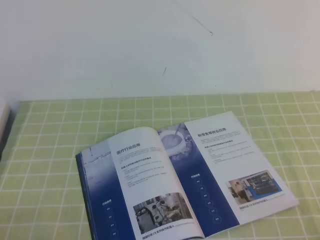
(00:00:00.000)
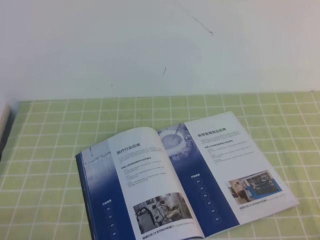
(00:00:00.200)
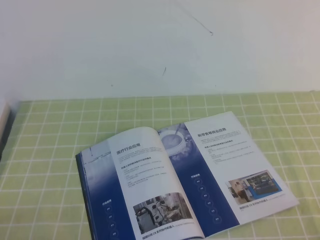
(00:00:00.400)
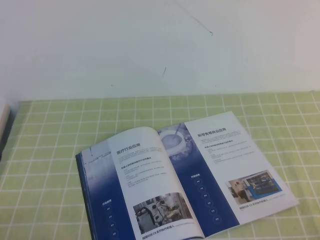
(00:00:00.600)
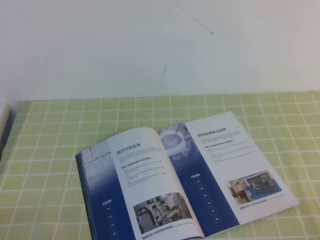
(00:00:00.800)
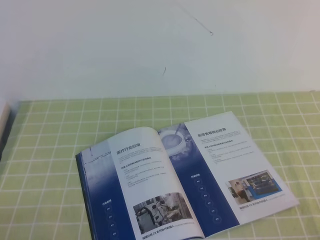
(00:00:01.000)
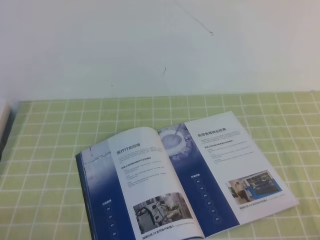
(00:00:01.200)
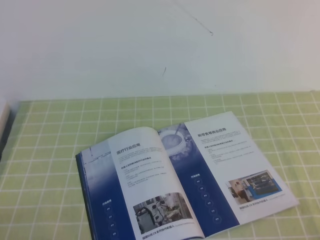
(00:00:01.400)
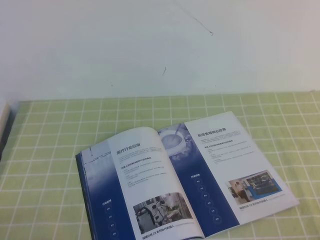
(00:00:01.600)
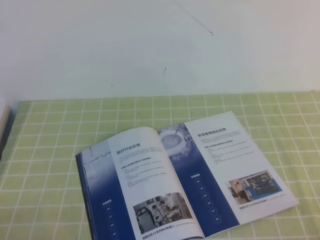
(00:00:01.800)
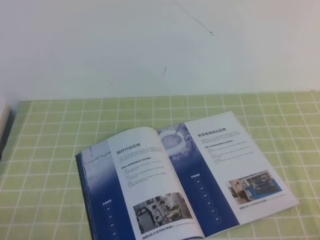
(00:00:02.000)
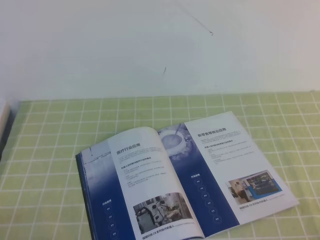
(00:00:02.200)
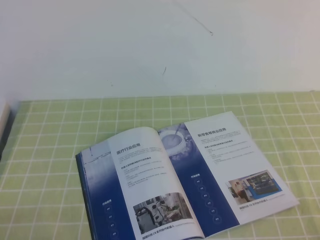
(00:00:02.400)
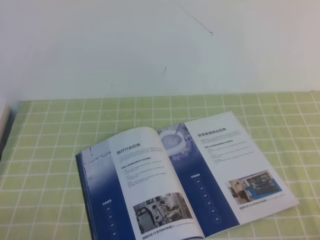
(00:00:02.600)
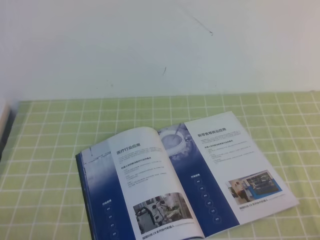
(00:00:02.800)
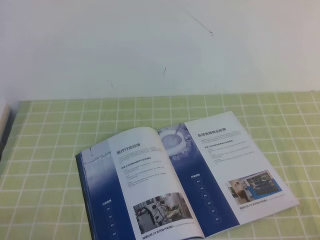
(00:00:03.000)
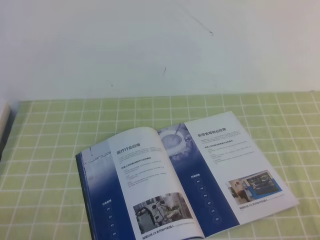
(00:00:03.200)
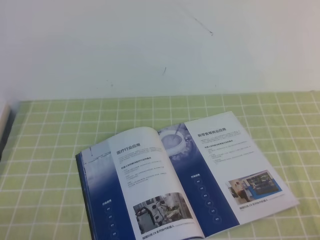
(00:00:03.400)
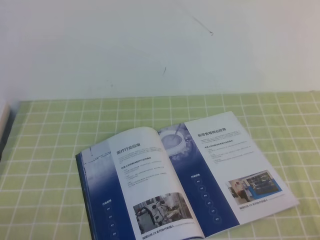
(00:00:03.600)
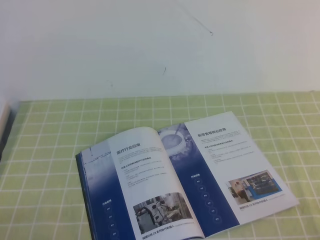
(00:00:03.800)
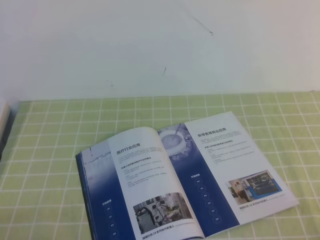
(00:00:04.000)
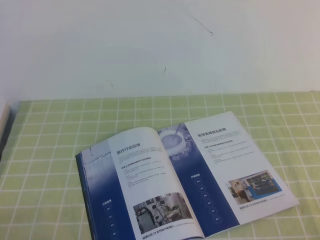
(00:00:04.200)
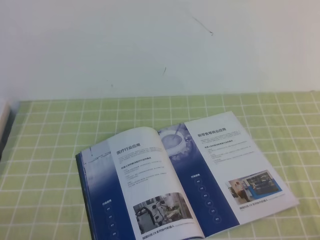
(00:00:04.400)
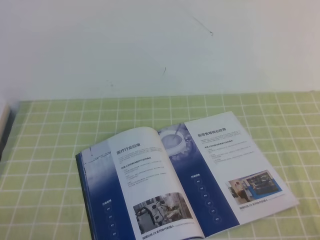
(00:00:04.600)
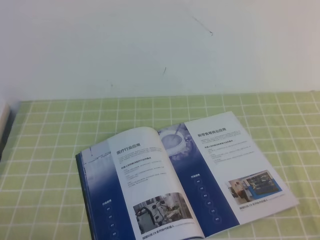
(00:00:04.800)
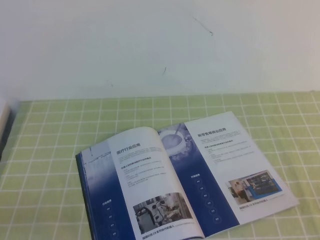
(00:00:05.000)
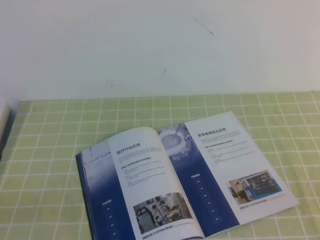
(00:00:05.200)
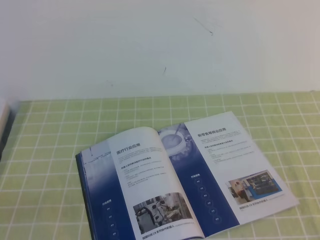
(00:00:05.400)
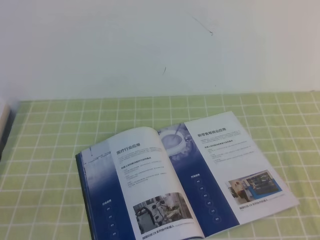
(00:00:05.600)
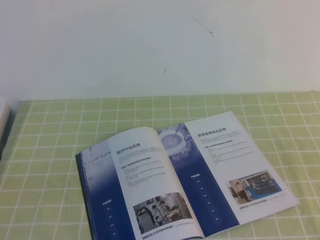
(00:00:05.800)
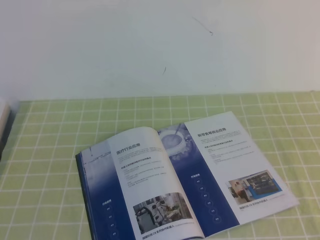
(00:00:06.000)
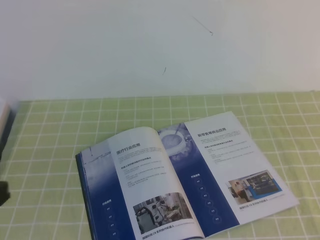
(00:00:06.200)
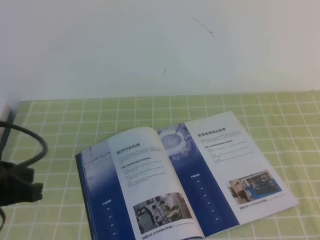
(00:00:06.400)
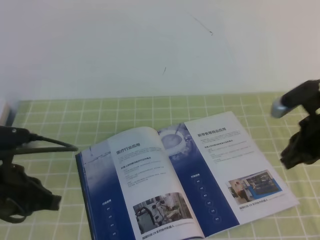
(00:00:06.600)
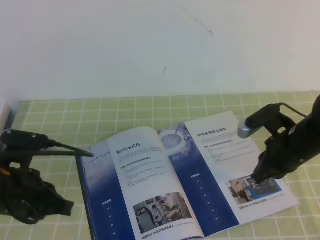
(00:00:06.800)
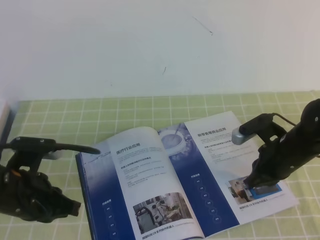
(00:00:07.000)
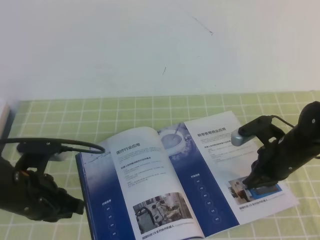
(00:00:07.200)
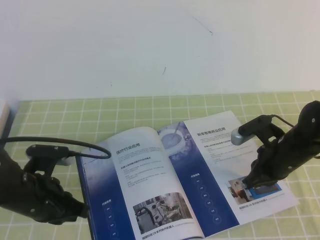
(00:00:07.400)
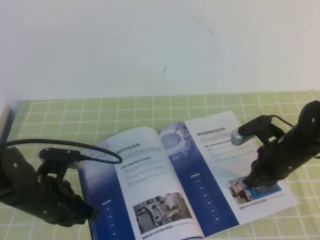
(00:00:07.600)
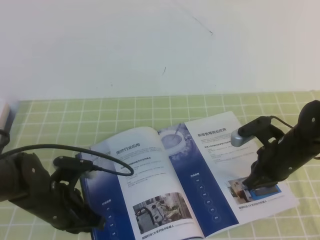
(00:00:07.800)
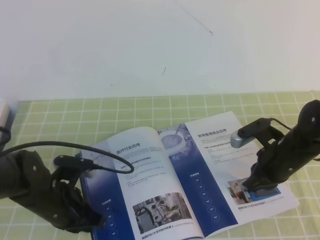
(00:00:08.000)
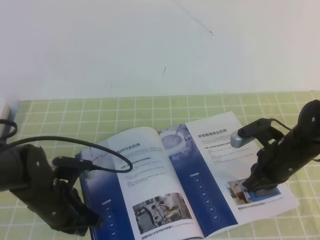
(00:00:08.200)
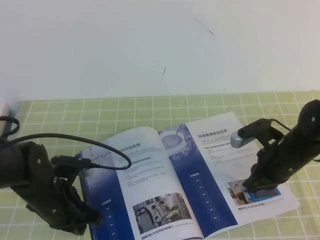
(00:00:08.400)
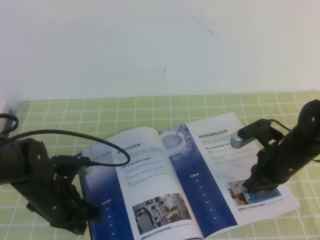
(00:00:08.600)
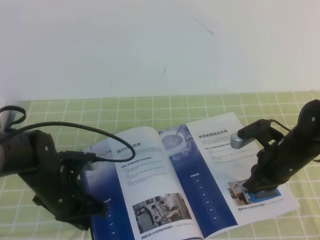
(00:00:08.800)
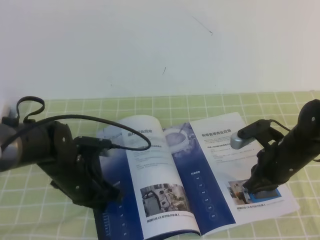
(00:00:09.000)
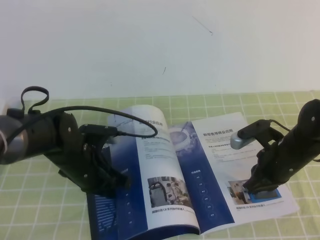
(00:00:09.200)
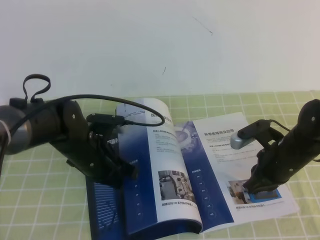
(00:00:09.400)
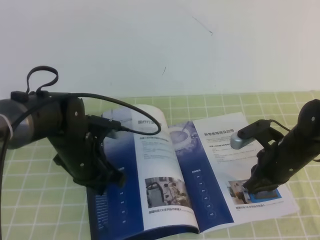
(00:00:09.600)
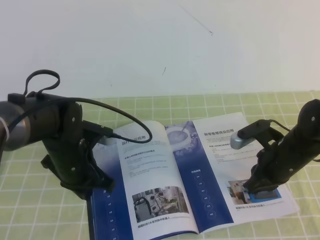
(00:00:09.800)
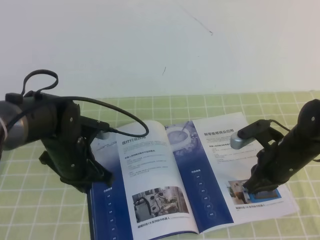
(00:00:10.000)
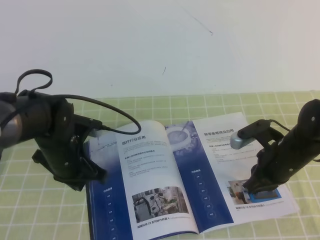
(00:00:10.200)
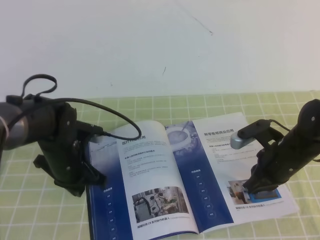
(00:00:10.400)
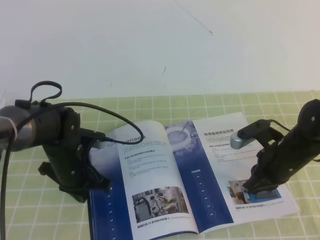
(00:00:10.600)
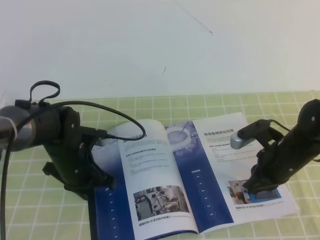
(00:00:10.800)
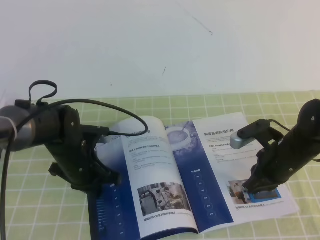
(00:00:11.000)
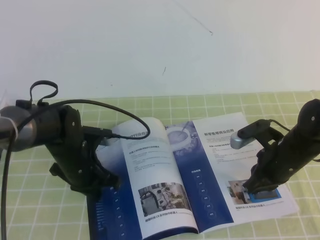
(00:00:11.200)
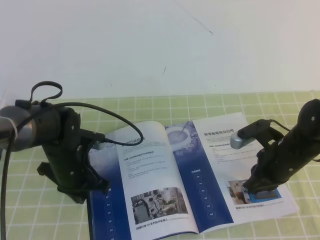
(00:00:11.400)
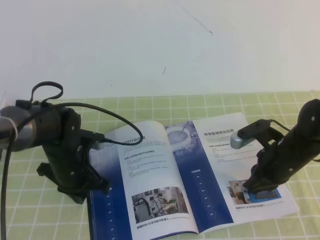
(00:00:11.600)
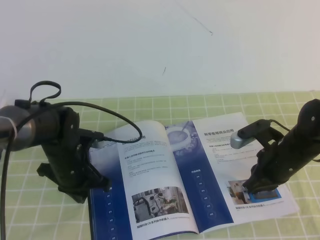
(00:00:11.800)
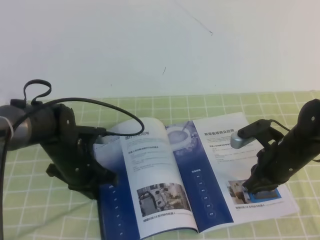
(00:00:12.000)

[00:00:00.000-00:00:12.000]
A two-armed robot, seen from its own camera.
Task of the whole recording: on the green tablecloth, hold the book with one hand and close it with the other.
00:00:00.000 to 00:00:04.400: The two grippers keep their place.
00:00:06.000 to 00:00:07.600: The left gripper heads forward and downward, covering about 25 cm, while the right gripper heads forward, downward and to the left, covering some 35 cm.
00:00:07.600 to 00:00:09.000: The left gripper ends up approximately 5 cm from where it was.
00:00:09.000 to 00:00:12.000: There are only small adjustments of the grippers.

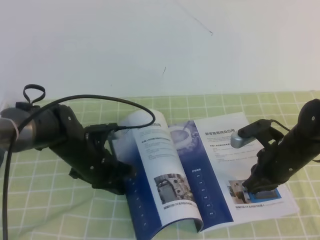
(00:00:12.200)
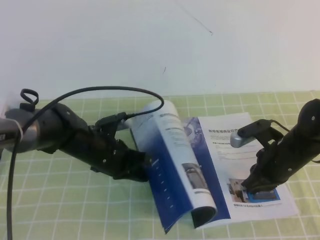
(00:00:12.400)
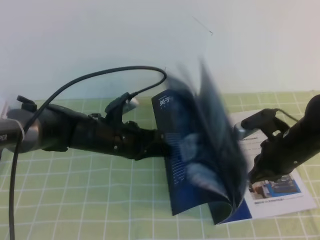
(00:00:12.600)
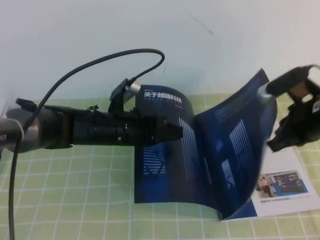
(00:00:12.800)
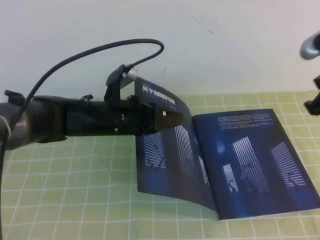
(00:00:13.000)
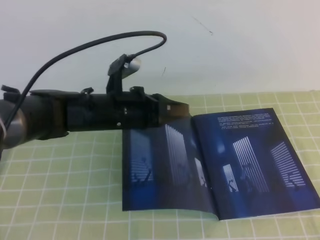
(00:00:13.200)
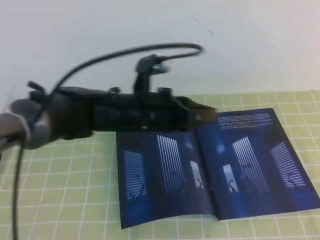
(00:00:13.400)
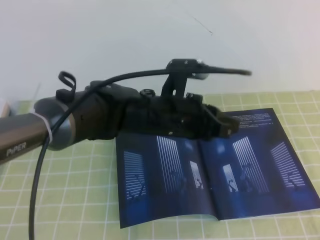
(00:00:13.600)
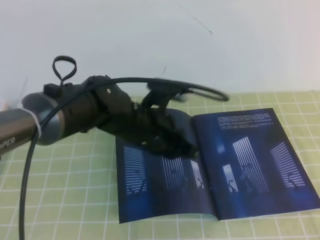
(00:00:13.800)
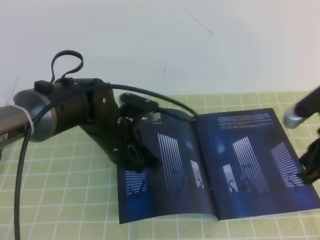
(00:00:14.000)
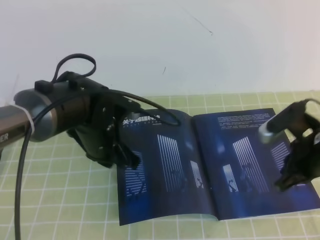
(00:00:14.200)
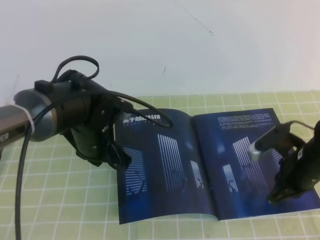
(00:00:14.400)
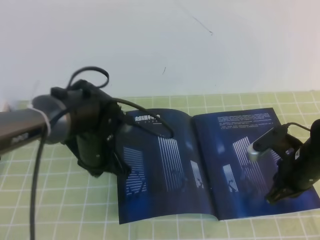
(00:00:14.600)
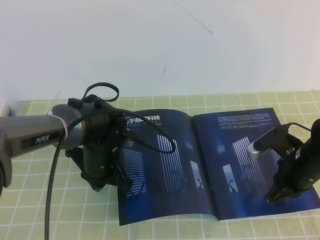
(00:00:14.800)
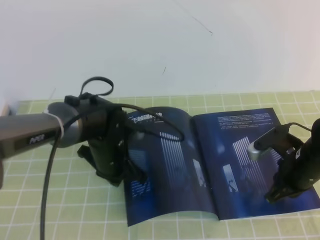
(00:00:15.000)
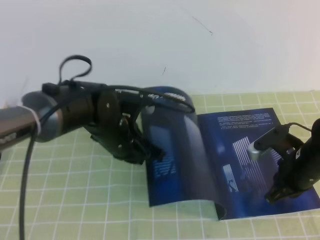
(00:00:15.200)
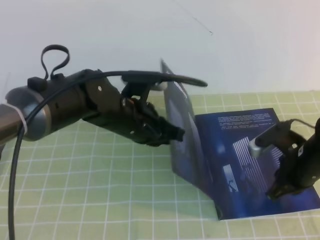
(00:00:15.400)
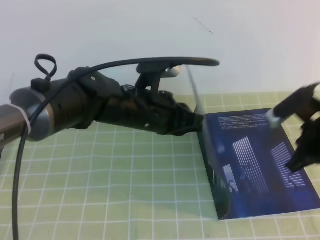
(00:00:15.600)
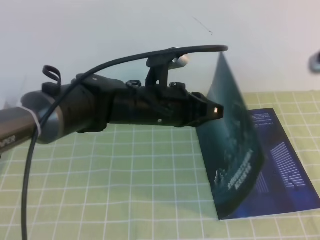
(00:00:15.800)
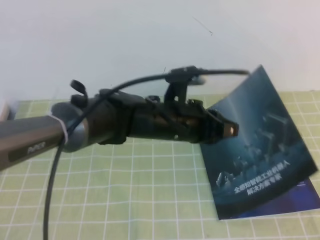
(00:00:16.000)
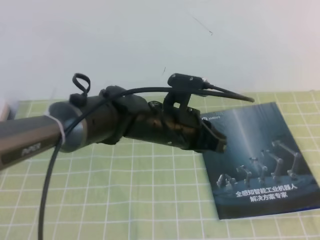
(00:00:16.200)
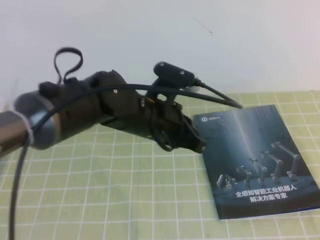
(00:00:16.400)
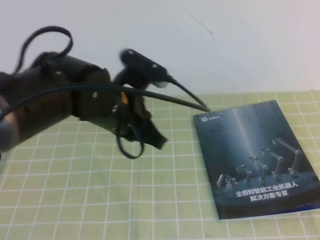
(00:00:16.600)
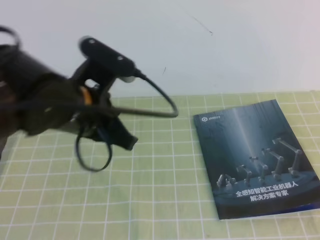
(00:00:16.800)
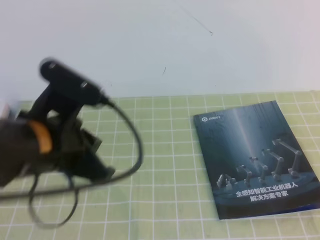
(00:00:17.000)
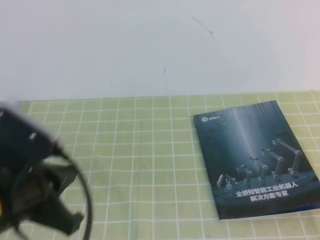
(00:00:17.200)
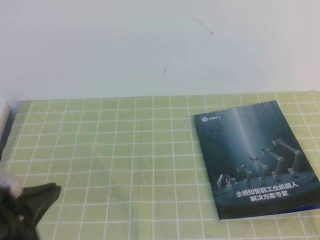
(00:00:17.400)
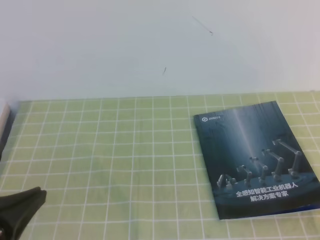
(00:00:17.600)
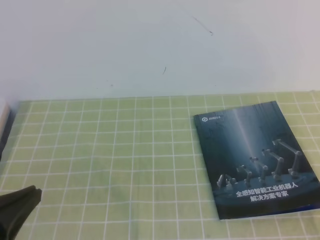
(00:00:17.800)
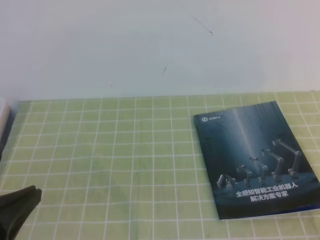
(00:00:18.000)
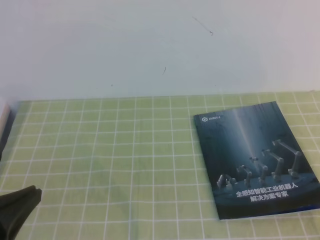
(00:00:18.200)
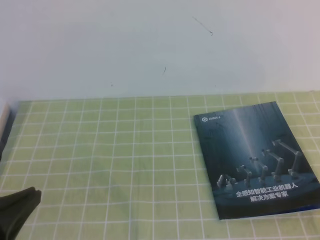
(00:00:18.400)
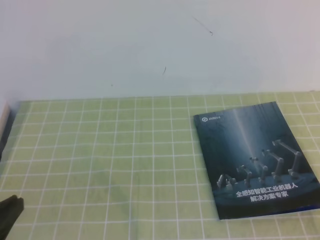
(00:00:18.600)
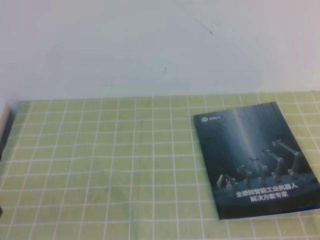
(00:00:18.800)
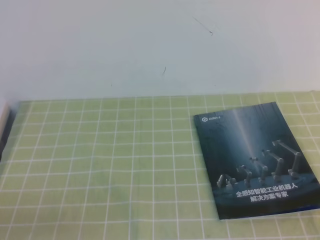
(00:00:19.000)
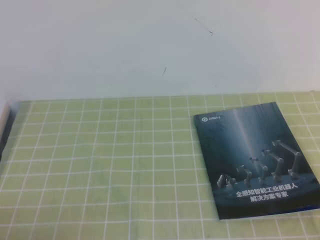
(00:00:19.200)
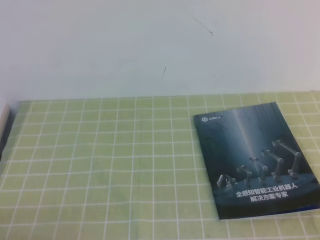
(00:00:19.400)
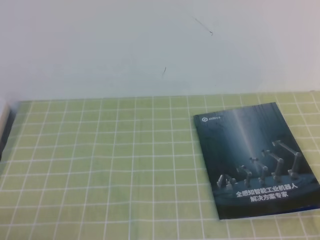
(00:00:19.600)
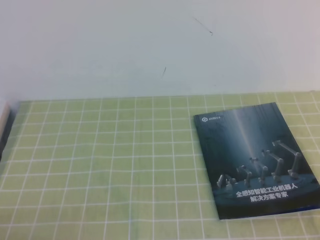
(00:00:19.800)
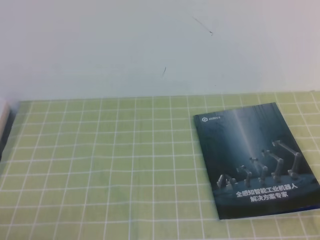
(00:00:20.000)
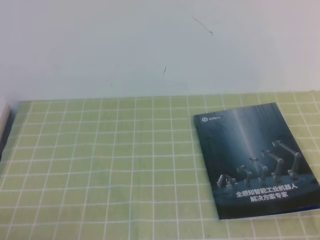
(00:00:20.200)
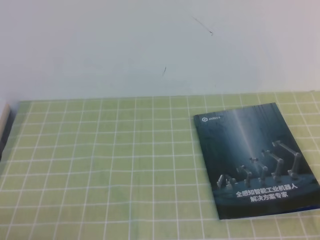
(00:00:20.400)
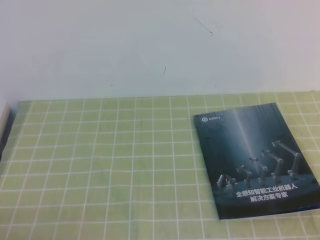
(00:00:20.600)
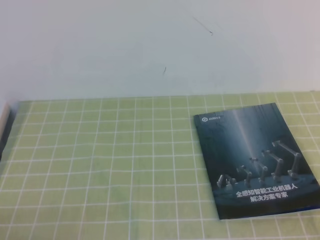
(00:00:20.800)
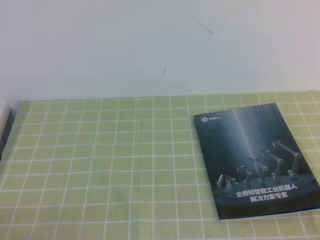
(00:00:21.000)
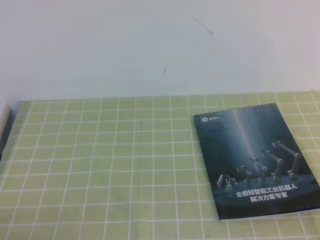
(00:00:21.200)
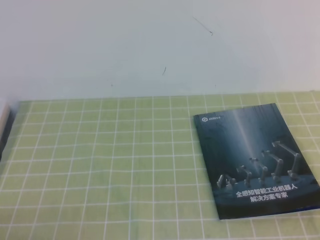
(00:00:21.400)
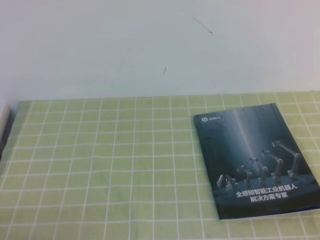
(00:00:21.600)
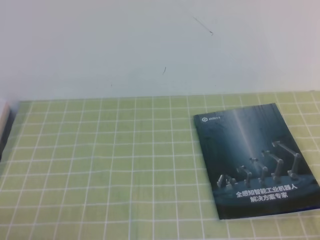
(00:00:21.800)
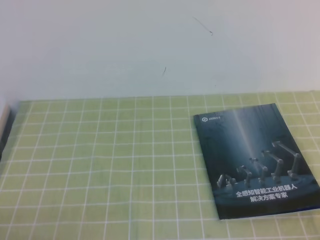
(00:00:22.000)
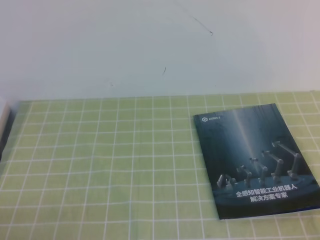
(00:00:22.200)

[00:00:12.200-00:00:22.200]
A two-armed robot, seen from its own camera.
Task of the whole recording: on the green tablecloth, hold the book with one hand and close it with the other.
00:00:12.200 to 00:00:13.600: The left gripper moves to the right and upward, some 15 cm; the right gripper shifts approximately 25 cm upward and backward.
00:00:13.600 to 00:00:15.000: The right gripper shifts about 25 cm downward. The left gripper is displaced downward and to the left by roughly 10 cm.
00:00:15.000 to 00:00:16.400: The left gripper moves upward and to the right, roughly 10 cm. The right gripper moves upward and backward, some 35 cm.
00:00:16.400 to 00:00:18.000: The right gripper heads downward and backward, covering approximately 20 cm. The left gripper travels backward and to the left by some 30 cm.
00:00:18.000 to 00:00:19.400: The left gripper is displaced downward by some 10 cm.
00:00:19.400 to 00:00:20.800: Both grippers stay about where they are.
